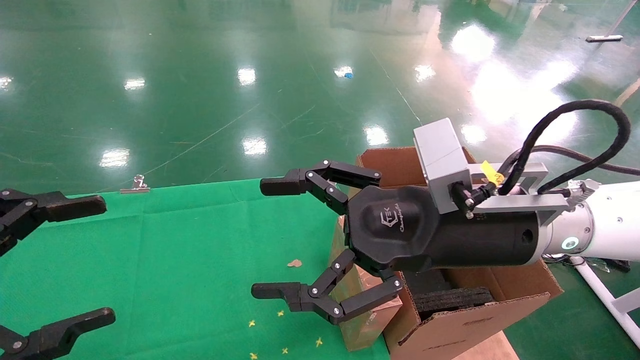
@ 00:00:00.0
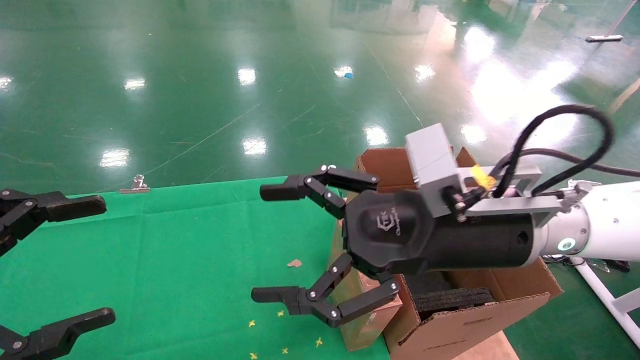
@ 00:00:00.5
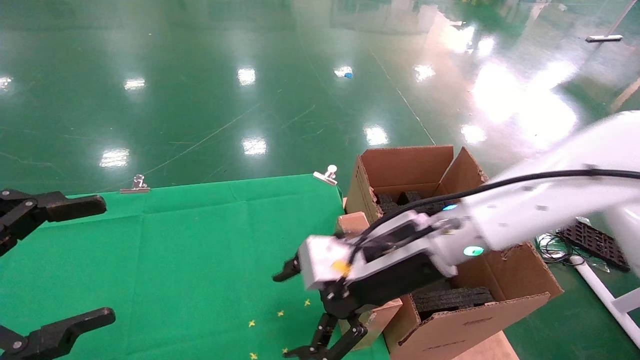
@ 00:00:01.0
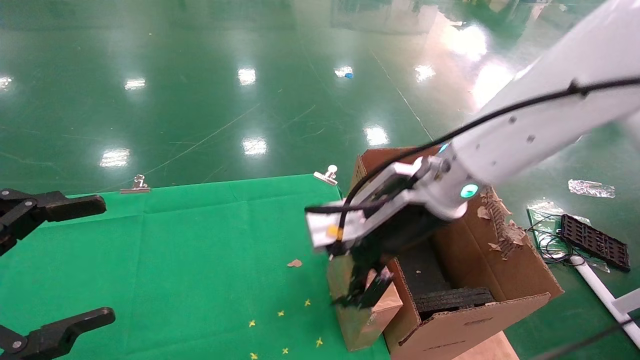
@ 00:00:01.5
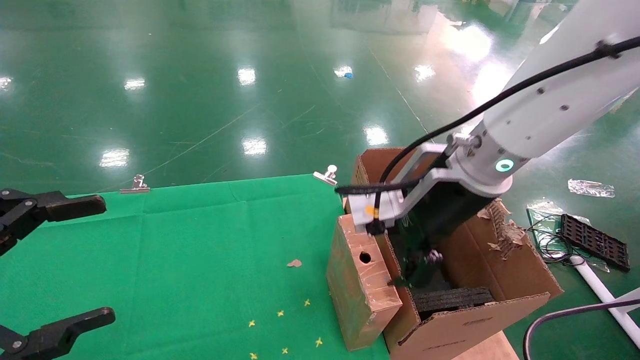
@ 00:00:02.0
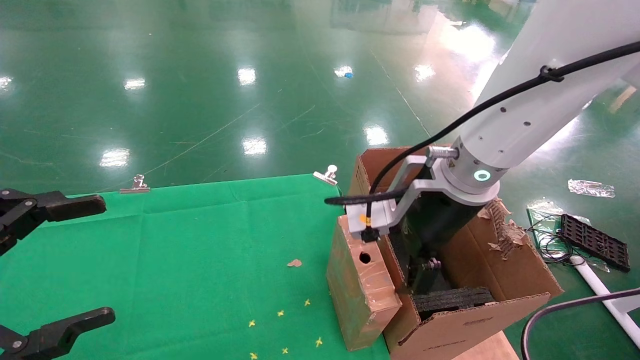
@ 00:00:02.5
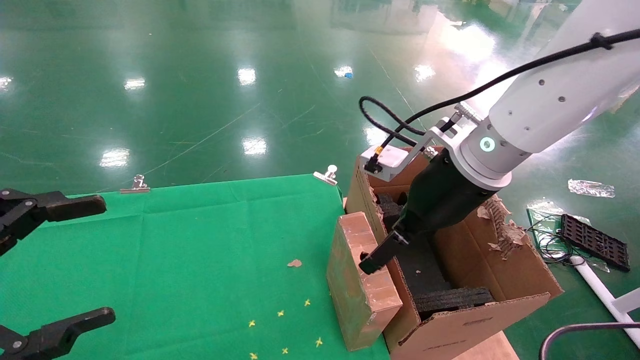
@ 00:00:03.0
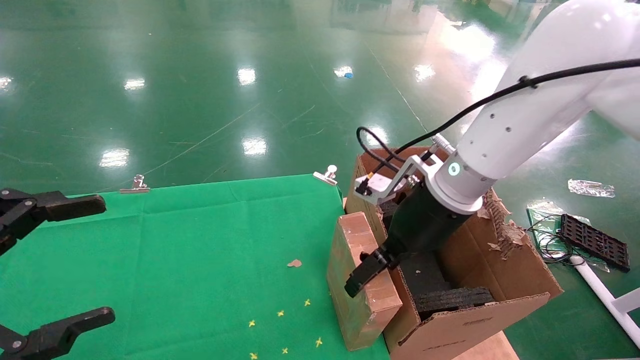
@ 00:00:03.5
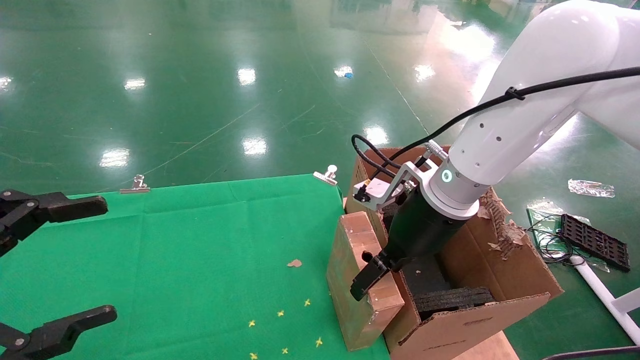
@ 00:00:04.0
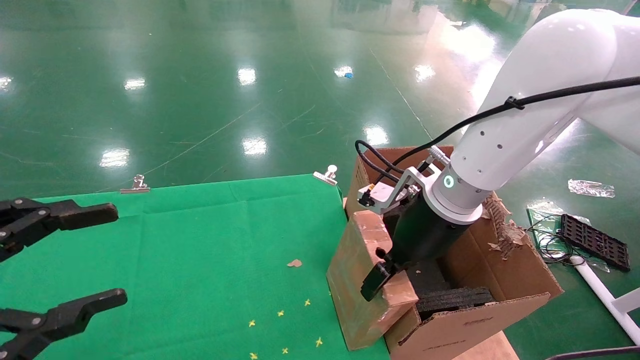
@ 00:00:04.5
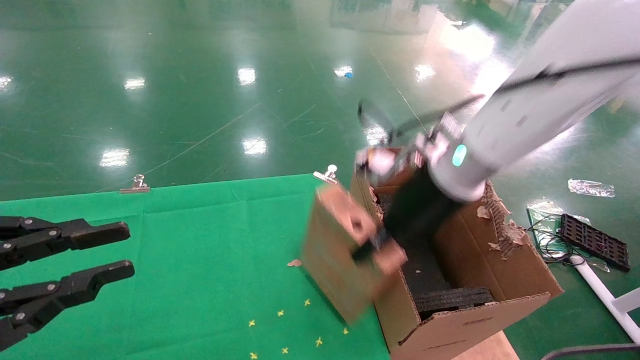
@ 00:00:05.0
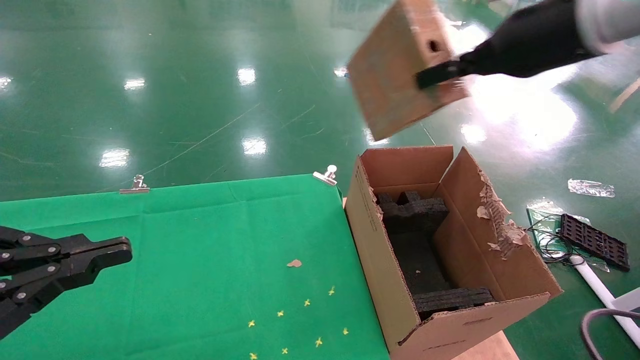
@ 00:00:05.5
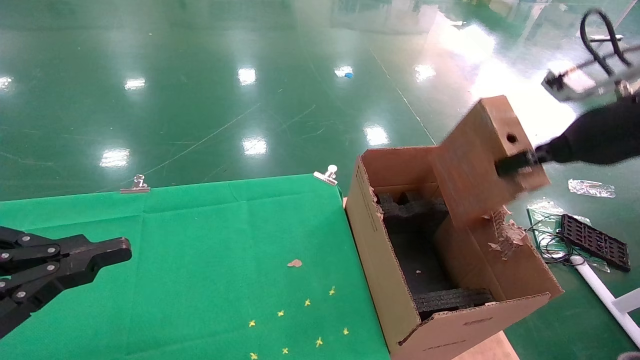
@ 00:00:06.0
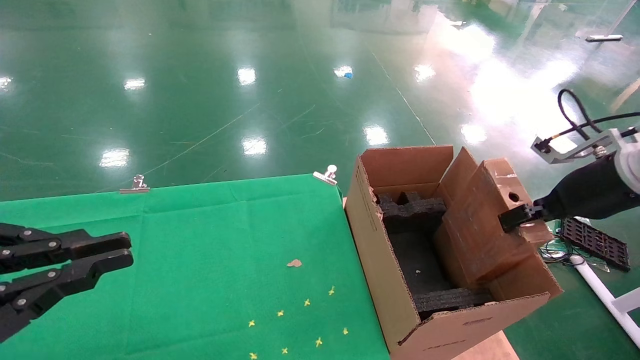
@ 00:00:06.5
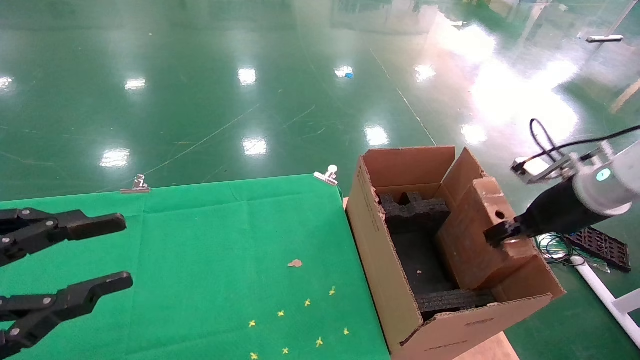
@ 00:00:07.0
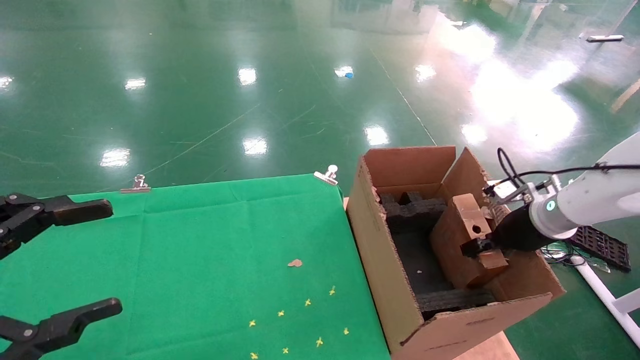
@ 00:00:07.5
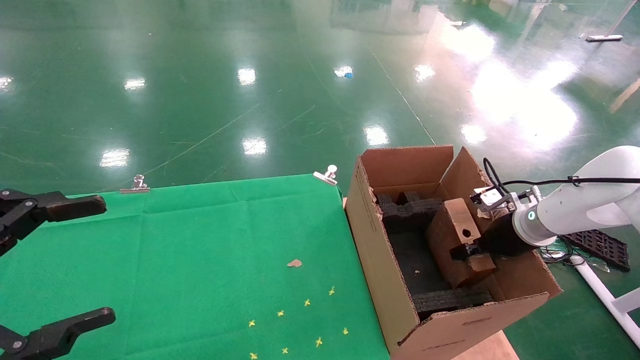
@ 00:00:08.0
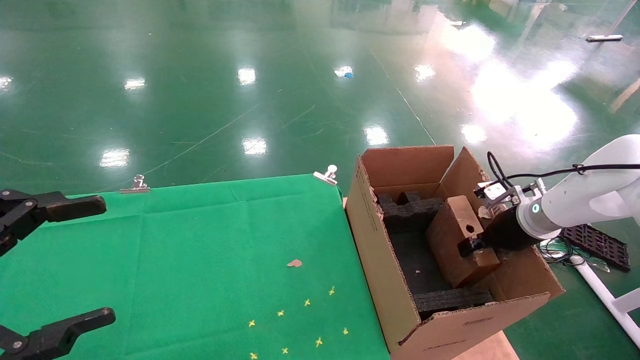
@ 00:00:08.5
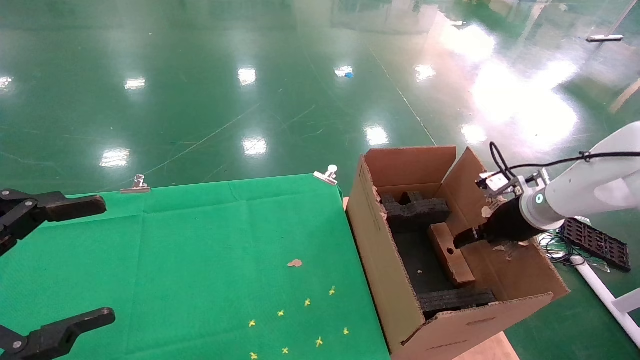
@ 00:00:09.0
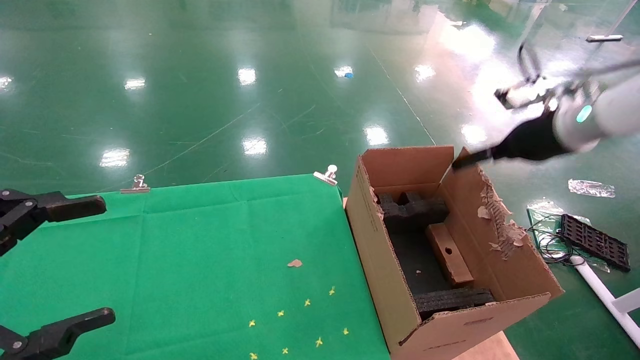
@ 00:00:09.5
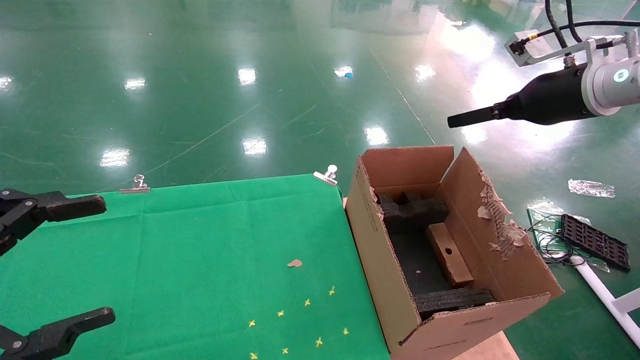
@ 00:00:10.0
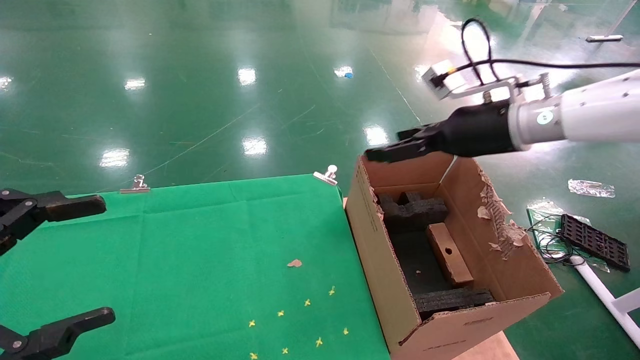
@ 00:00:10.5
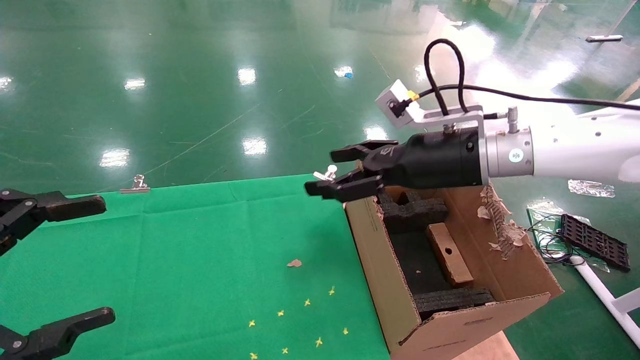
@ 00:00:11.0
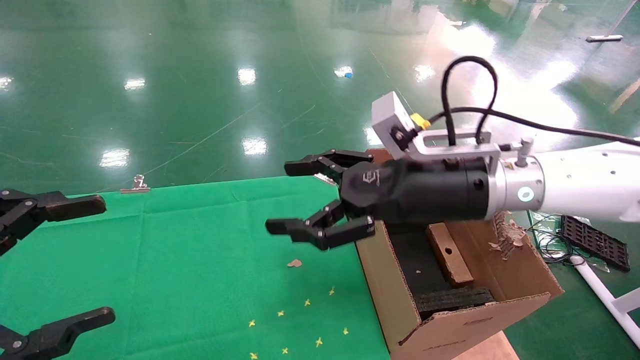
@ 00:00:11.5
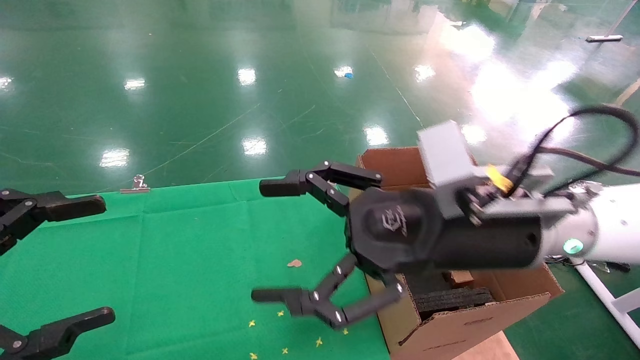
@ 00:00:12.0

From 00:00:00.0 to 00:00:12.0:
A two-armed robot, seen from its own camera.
Task of the whole recording: using a robotic arm to pick up a cardboard box and palace it the carton.
Step, from 00:00:01.0 to 00:00:04.5: Pick up the mouse and the power cord paper box.
Step, from 00:00:05.0 to 00:00:09.5: Place the mouse and the power cord paper box into the container.
From 00:00:00.0 to 00:00:02.0: The right gripper heads forward, covering roughly 5 cm.
From 00:00:02.0 to 00:00:04.0: The right gripper shifts by approximately 5 cm.
From 00:00:04.0 to 00:00:06.0: The right gripper shifts some 25 cm to the right and upward, and closes up; the left gripper closes up.
From 00:00:06.0 to 00:00:08.0: The left gripper opens up. Meanwhile the right gripper heads downward and forward, covering approximately 25 cm.
From 00:00:08.0 to 00:00:10.0: The right gripper is displaced upward by roughly 20 cm, and opens its fingers.
From 00:00:10.0 to 00:00:12.0: The right gripper shifts roughly 25 cm to the left, backward and downward.

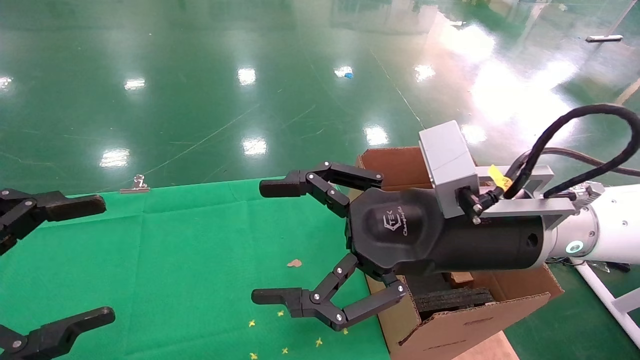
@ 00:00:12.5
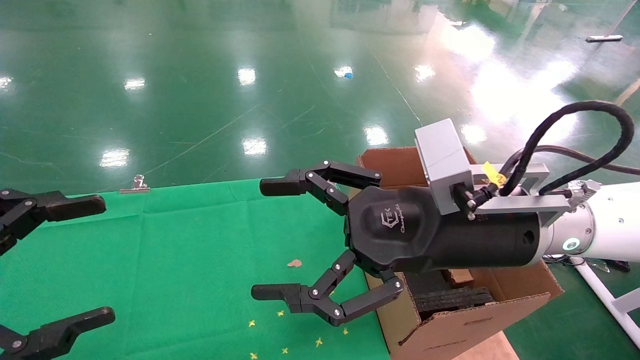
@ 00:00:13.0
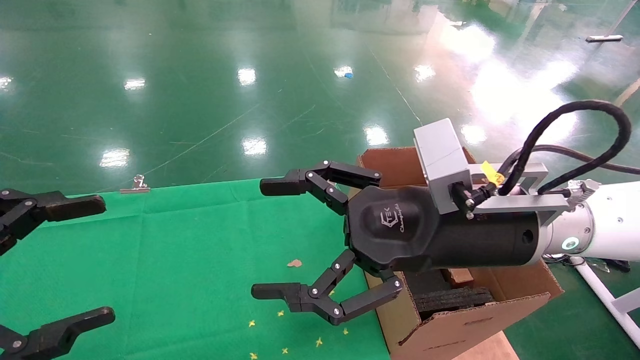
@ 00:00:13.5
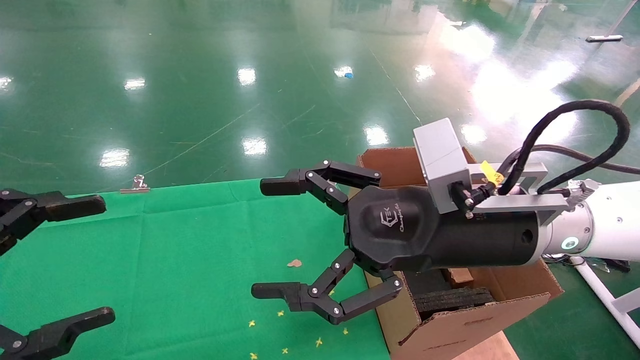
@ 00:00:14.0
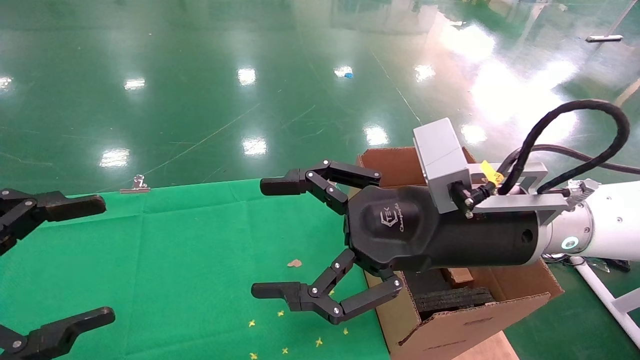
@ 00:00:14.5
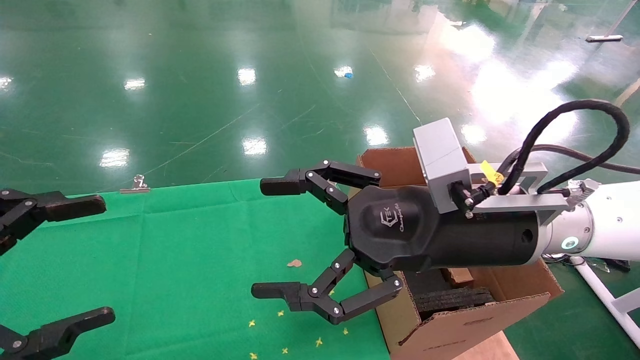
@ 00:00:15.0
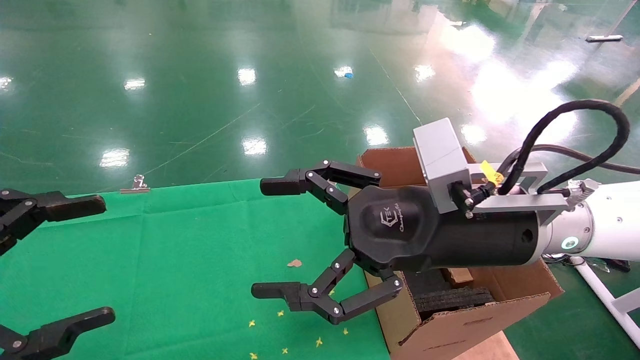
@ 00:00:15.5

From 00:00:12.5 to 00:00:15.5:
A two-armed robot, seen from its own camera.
Task of the whole recording: using a robotic arm to pick up a cardboard box and palace it the carton.
From 00:00:12.5 to 00:00:15.5: Both grippers stay about where they are.
